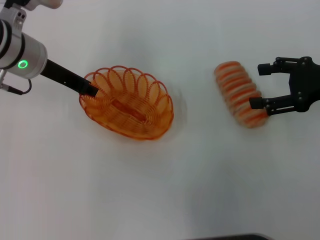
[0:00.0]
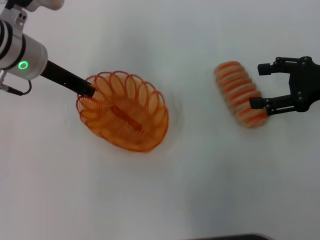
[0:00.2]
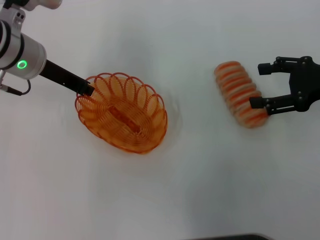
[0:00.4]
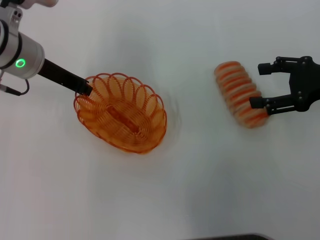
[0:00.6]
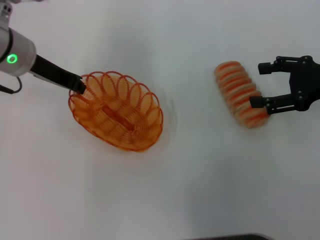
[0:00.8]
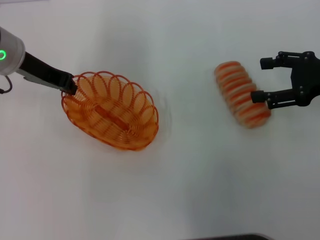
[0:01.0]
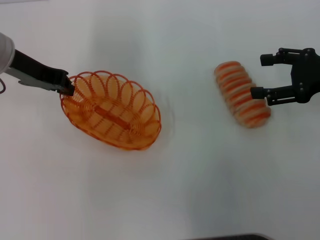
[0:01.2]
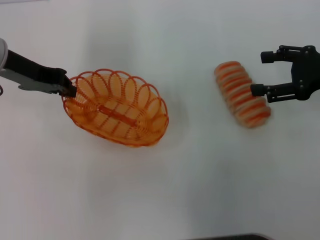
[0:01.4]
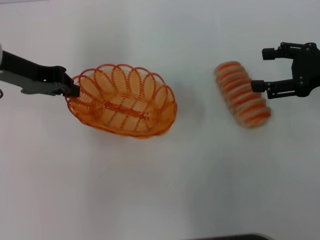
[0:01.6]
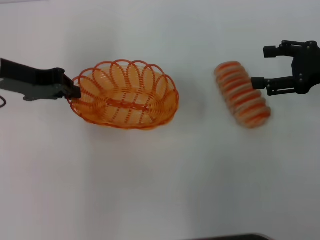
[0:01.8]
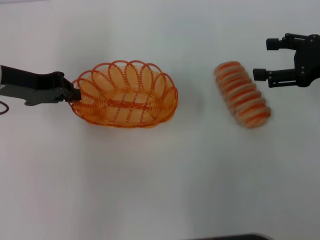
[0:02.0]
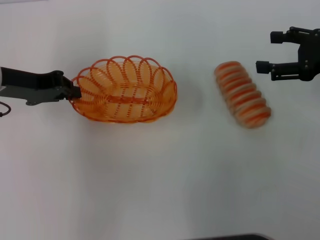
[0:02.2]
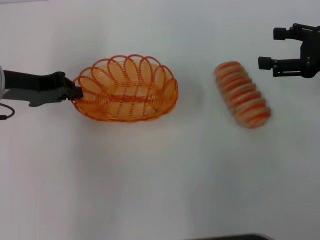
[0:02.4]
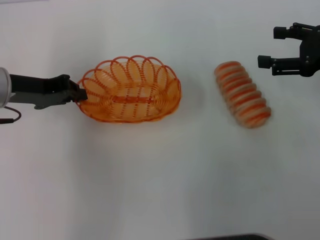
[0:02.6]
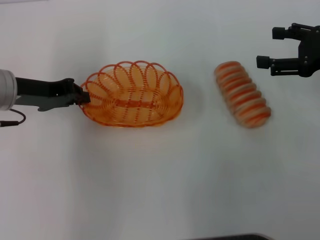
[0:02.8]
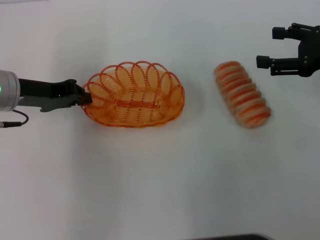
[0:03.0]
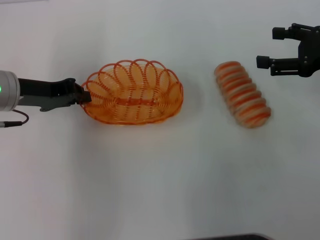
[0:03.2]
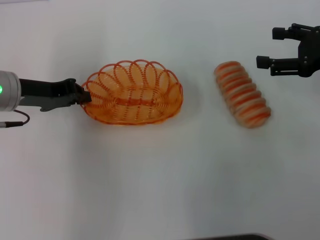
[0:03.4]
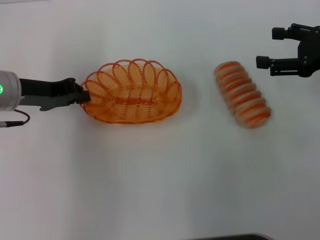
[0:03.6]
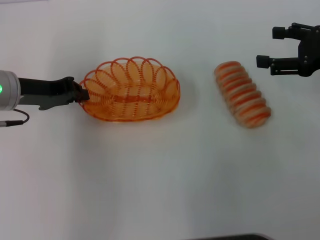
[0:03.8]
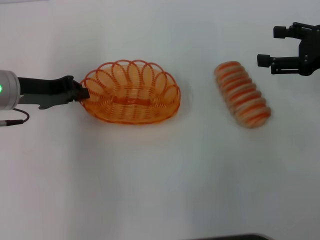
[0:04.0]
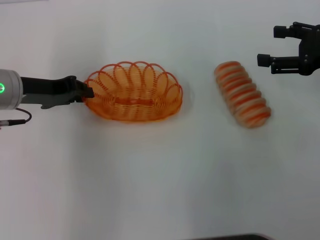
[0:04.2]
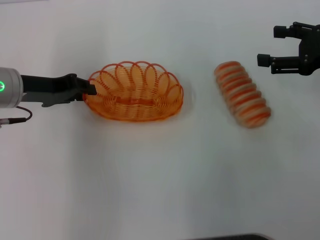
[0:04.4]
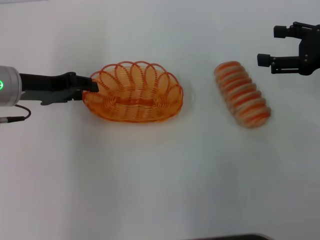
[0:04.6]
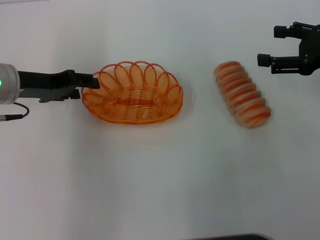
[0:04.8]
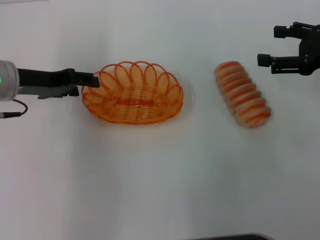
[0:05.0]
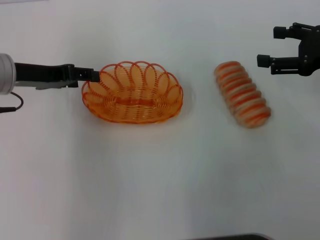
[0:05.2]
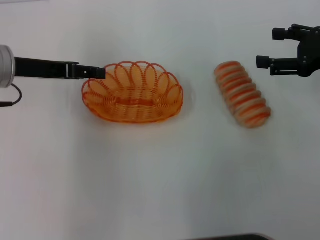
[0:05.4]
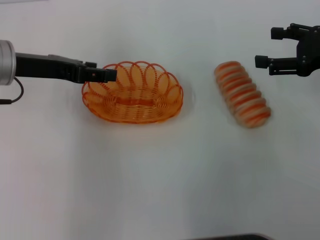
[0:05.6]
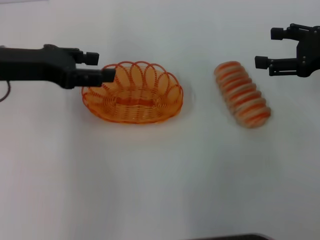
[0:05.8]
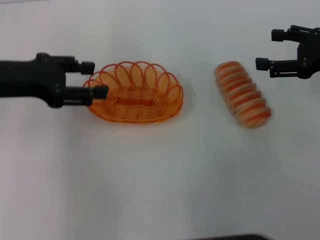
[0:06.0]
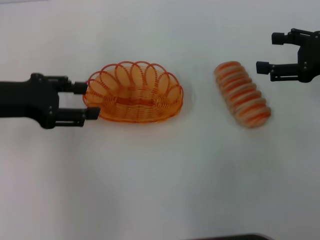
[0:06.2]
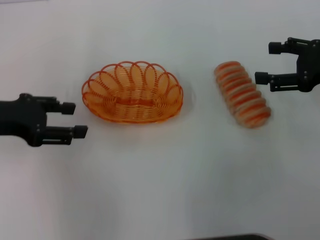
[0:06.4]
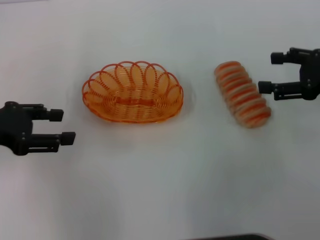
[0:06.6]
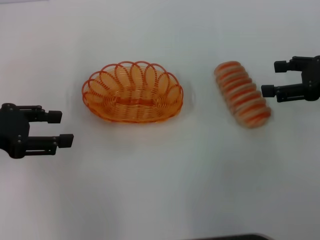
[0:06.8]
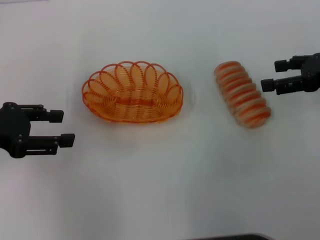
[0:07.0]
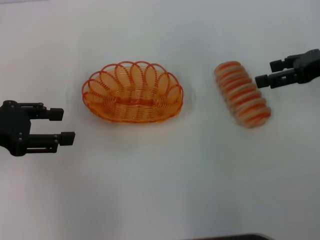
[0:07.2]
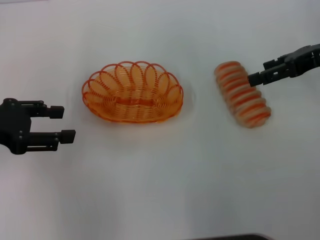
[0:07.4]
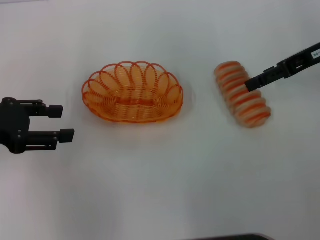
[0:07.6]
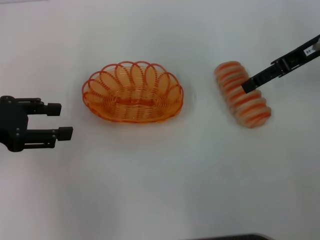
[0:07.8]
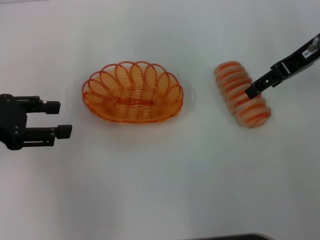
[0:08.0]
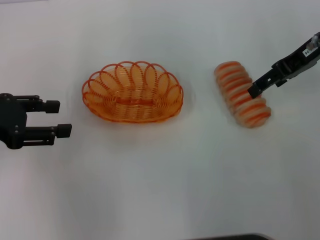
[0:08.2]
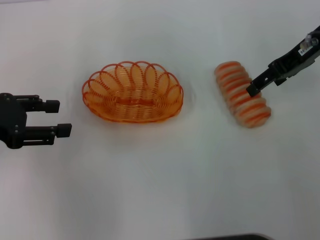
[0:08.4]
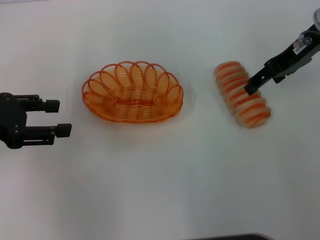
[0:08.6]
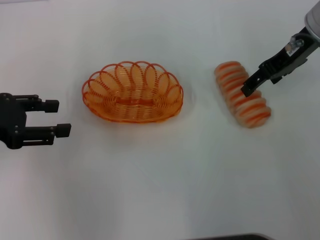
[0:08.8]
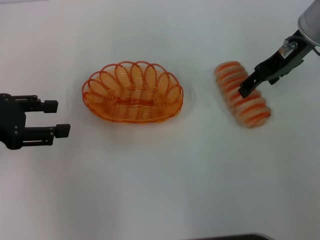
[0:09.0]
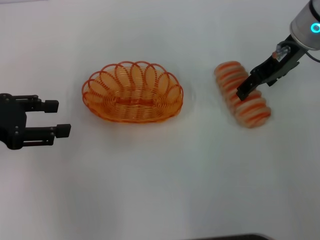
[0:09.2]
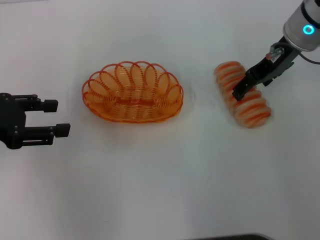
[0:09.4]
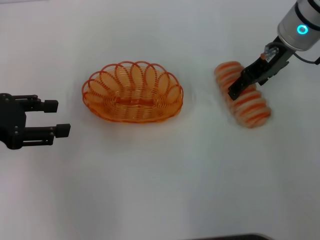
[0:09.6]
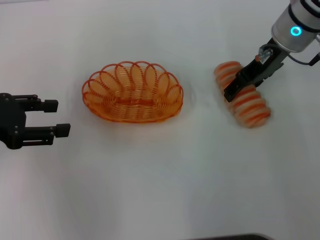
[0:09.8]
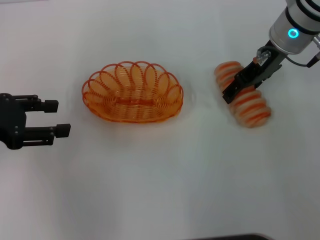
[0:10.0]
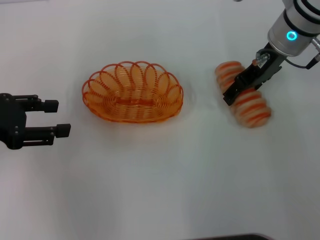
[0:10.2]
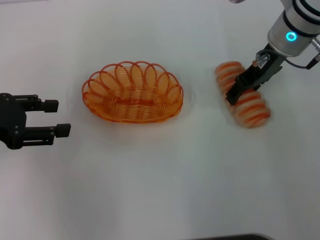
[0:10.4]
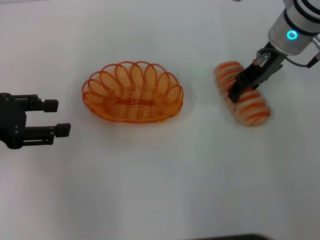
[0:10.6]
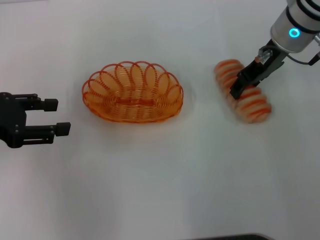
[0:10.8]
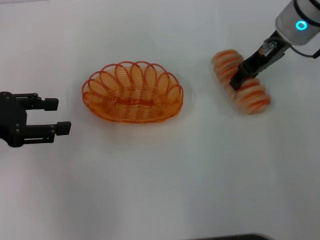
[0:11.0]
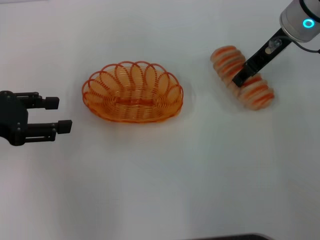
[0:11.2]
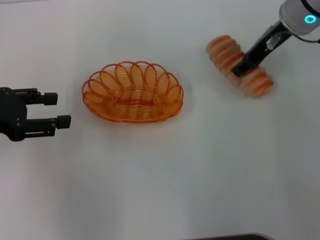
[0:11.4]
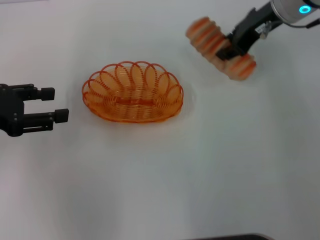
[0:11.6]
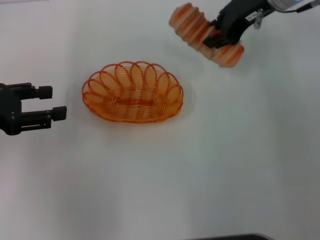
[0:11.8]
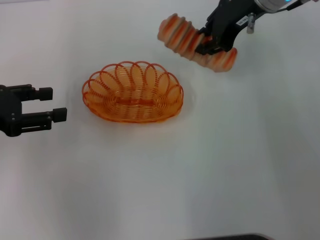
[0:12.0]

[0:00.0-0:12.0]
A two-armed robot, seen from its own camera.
Step, 0:02.0 to 0:05.4: Place the basket in the center of view with the left gripper.
Step, 0:05.6 to 0:11.2: Pick up the long bread with the right gripper.
0:00.0 to 0:01.6: The left gripper heads to the left, covering some 5 cm, and closes up.
0:01.6 to 0:03.0: The left gripper heads downward, covering roughly 5 cm.
0:03.0 to 0:04.4: Neither gripper changes place.
0:04.4 to 0:06.0: The left gripper goes approximately 5 cm upward, and opens its fingers.
0:06.0 to 0:07.6: The left gripper ends up about 5 cm from where it was; the right gripper goes roughly 5 cm forward.
0:07.6 to 0:09.0: The right gripper shifts roughly 5 cm to the left.
0:09.0 to 0:10.4: The grippers stay close to where they were, moving slightly.
0:10.4 to 0:12.0: The right gripper heads upward, covering roughly 5 cm, and closes up.

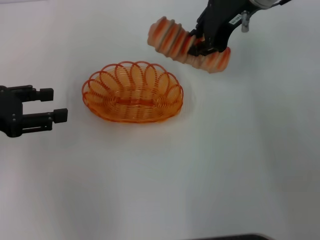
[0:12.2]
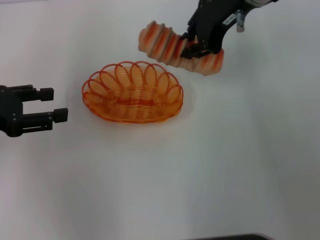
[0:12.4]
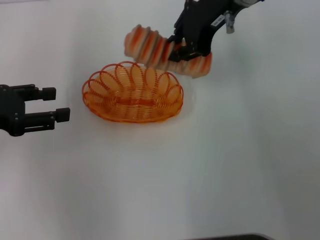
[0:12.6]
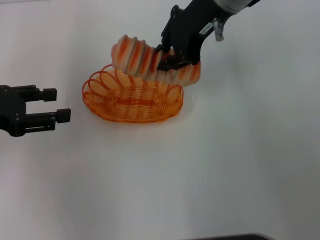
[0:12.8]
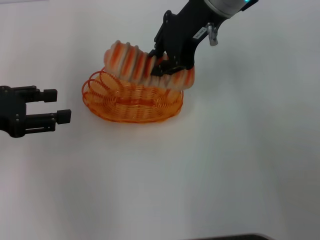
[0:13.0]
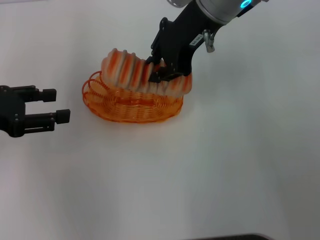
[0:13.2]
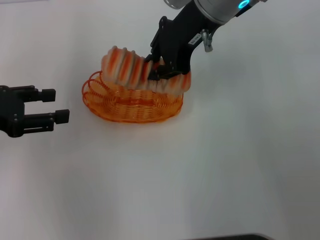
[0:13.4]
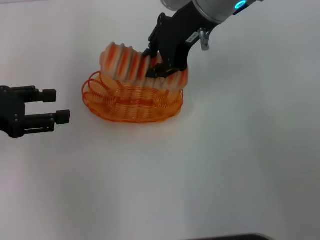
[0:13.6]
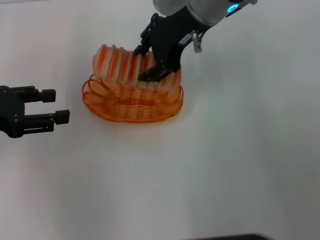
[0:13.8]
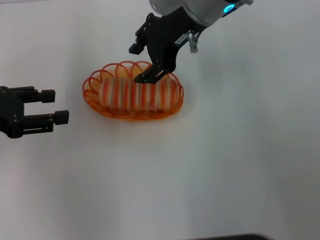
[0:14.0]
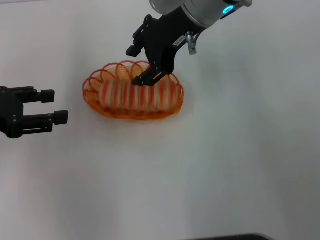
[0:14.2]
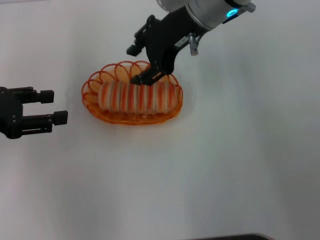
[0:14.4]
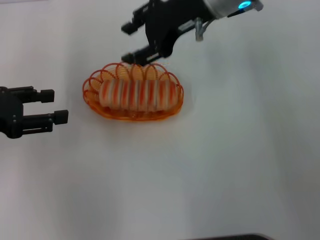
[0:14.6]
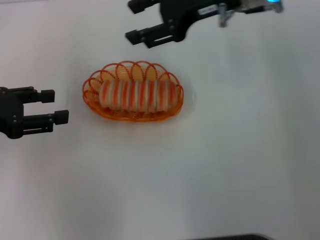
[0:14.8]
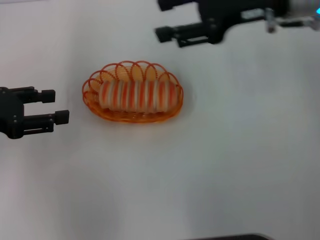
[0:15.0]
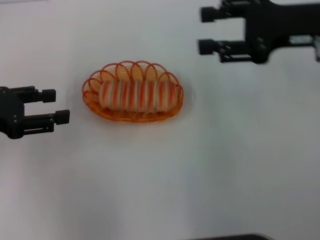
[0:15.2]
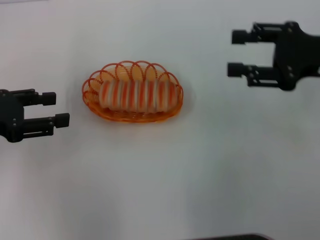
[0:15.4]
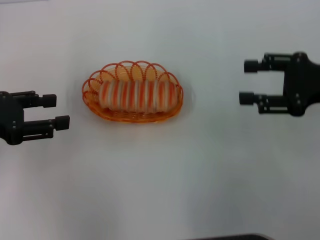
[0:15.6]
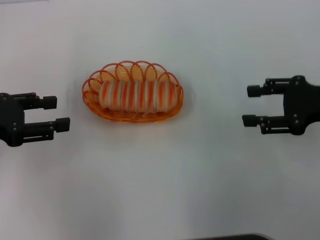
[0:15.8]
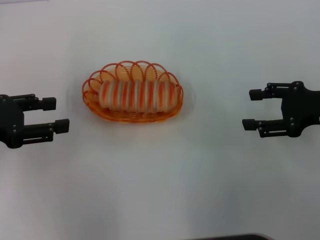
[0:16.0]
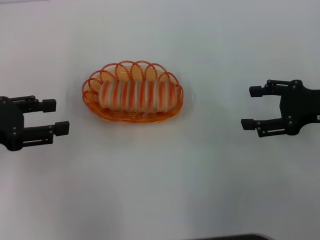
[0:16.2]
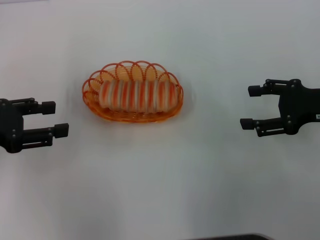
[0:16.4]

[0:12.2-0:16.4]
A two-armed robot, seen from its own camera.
Step, 0:12.2 to 0:14.4: Place the long bread into the basket with the right gripper.
0:12.2 to 0:13.6: The right gripper travels to the left by roughly 5 cm.
0:13.6 to 0:15.0: The right gripper shifts about 10 cm to the right, and opens its fingers.
0:15.0 to 0:16.4: The right gripper is displaced to the right, downward and backward by roughly 20 cm.
